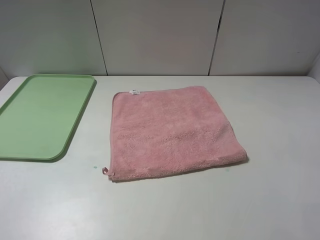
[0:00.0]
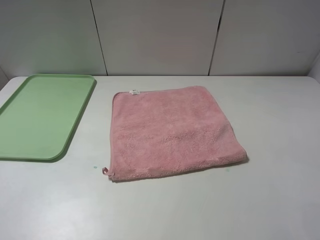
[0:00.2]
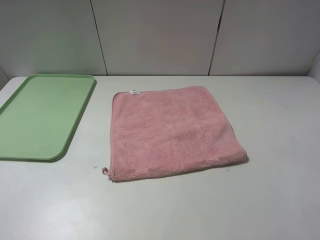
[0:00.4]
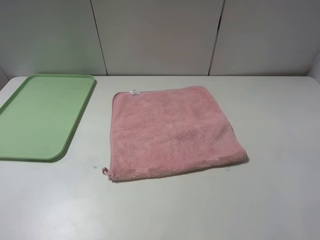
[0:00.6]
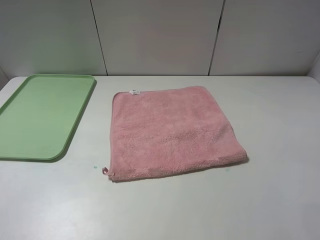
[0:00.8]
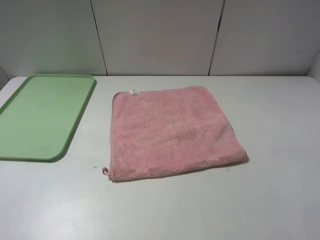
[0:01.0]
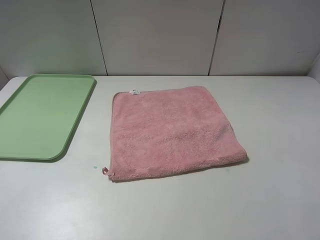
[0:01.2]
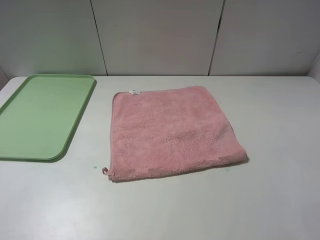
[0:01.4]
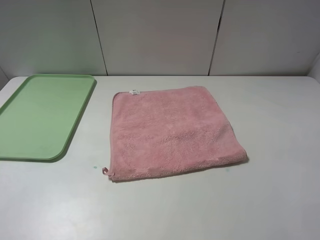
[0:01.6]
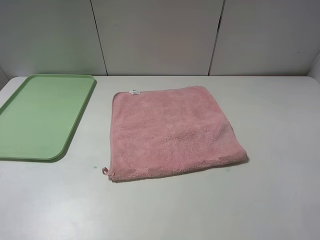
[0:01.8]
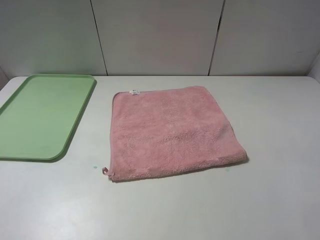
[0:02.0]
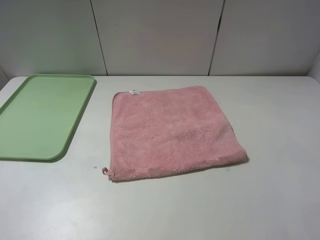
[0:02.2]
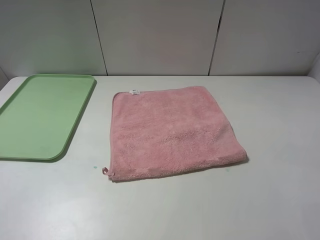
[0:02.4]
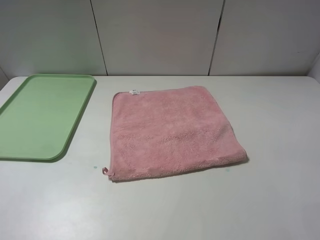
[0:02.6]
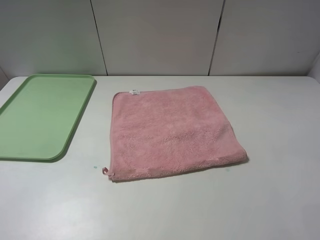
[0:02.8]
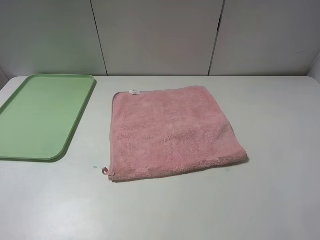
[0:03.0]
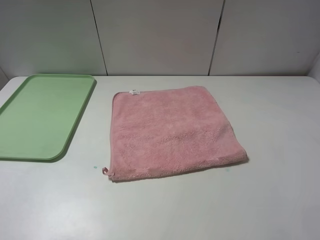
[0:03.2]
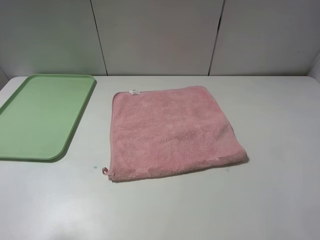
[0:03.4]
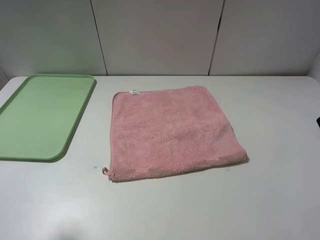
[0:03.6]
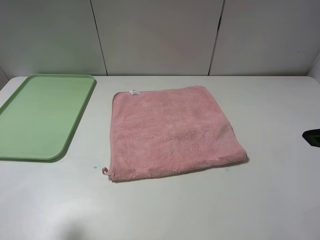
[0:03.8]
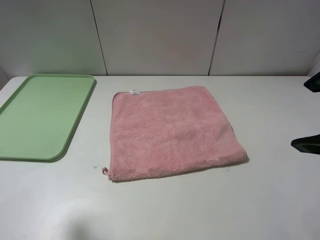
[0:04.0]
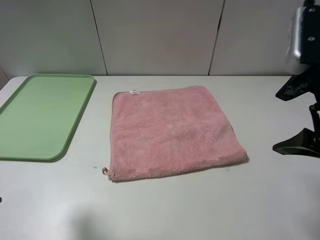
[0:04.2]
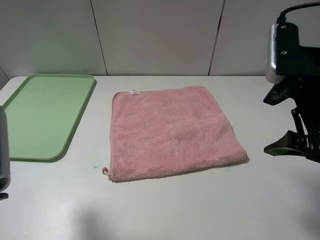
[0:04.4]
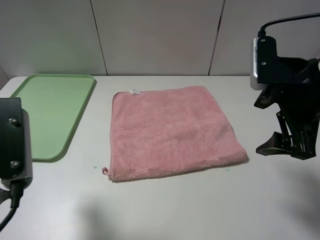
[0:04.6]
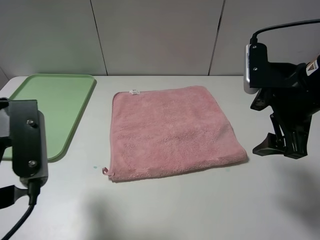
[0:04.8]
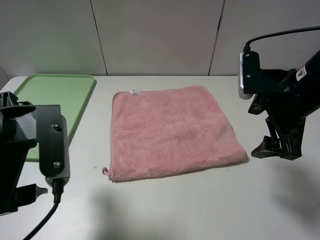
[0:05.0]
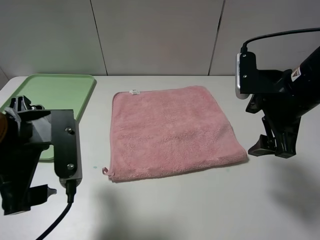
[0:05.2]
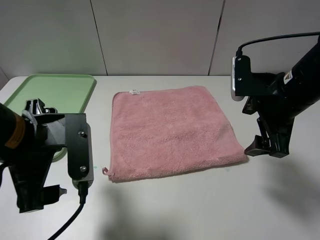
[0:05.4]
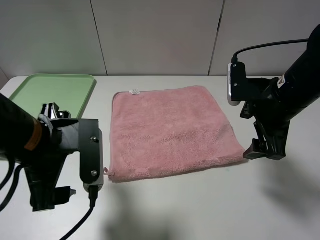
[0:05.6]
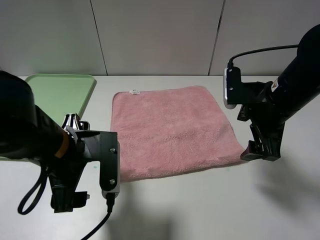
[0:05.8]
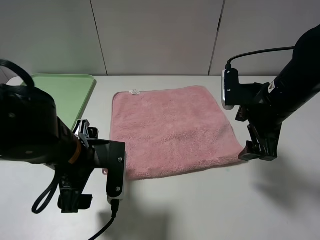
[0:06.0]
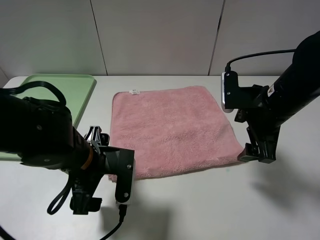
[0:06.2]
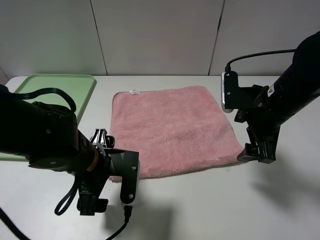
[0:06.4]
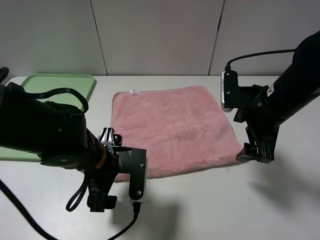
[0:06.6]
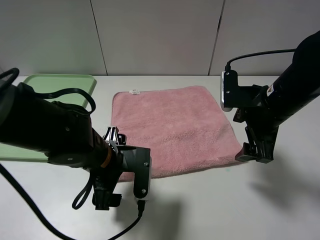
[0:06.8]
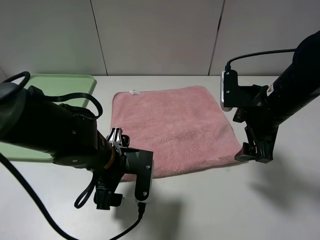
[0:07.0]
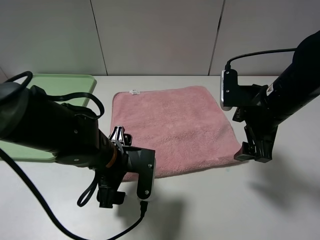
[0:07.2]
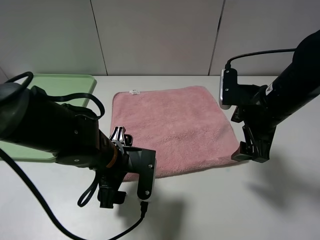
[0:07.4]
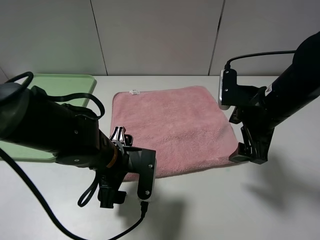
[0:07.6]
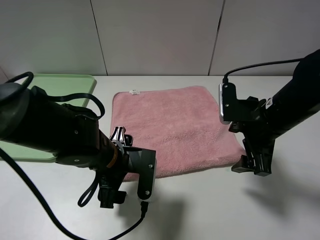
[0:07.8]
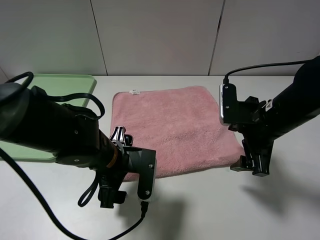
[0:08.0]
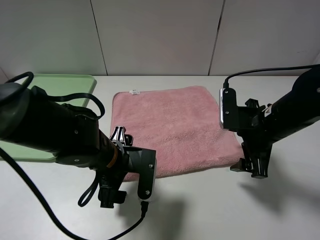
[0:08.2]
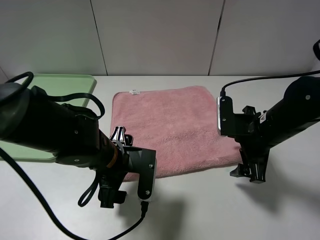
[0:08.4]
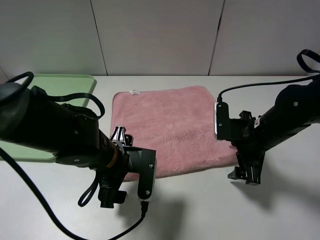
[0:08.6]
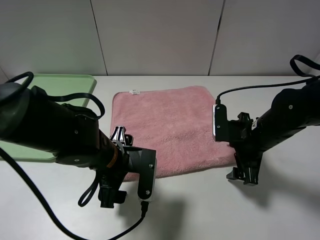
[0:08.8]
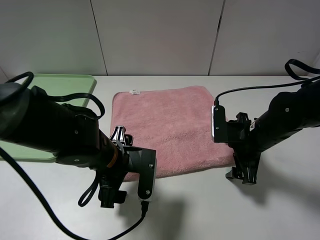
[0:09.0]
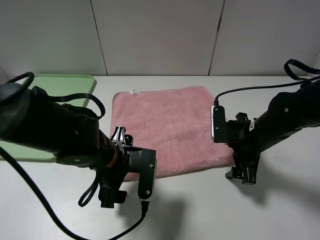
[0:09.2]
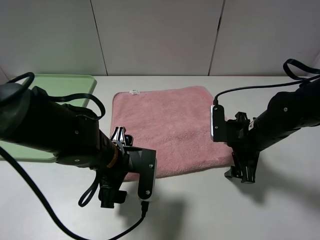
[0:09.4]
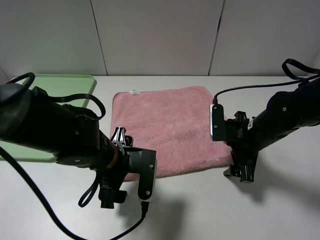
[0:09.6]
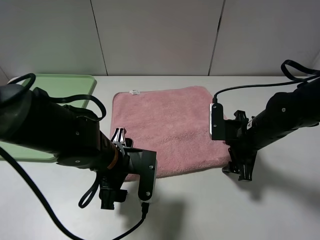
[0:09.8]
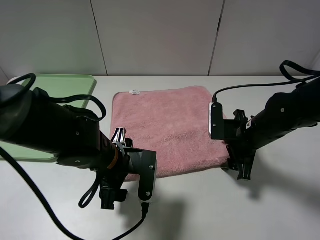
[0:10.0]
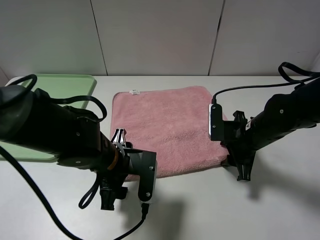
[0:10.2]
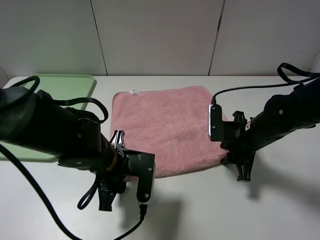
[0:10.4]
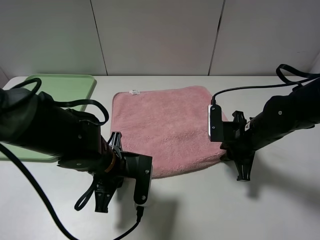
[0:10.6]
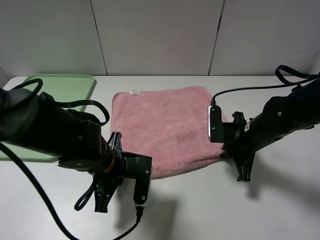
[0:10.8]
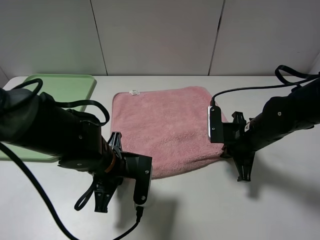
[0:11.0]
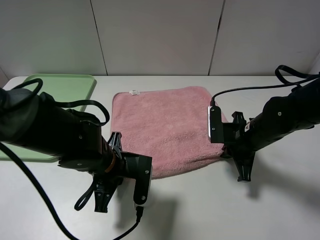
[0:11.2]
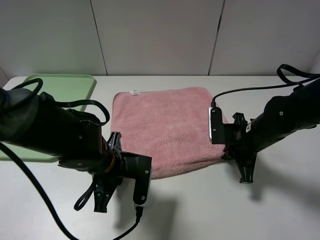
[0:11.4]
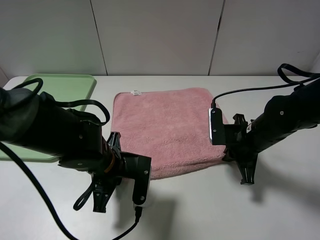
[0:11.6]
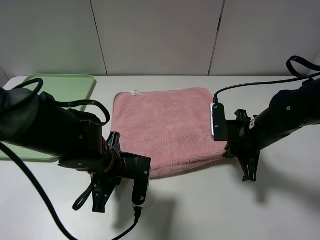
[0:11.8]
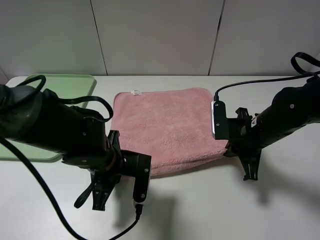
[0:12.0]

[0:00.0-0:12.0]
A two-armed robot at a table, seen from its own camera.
0:00.0 to 0:01.6: The two grippers keep their place.
0:03.0 to 0:04.4: The left gripper heads forward and to the right, covering some 10 cm. Meanwhile the right gripper heads forward, to the left and downward, covering approximately 15 cm.
0:04.4 to 0:06.0: The left gripper heads downward, to the right and forward, covering approximately 20 cm. Meanwhile the right gripper moves downward and forward, about 10 cm.
0:06.0 to 0:07.6: The left gripper moves about 5 cm.
0:07.6 to 0:09.0: The right gripper heads downward, covering about 10 cm.
0:09.0 to 0:10.4: The right gripper closes its fingers. Meanwhile the left gripper closes its fingers.
0:10.4 to 0:12.0: The right gripper closes. The left gripper closes.

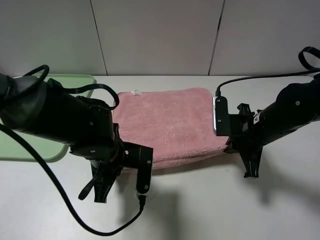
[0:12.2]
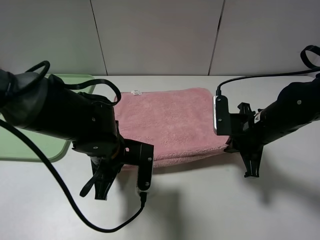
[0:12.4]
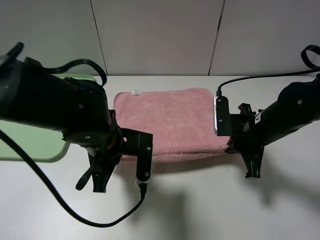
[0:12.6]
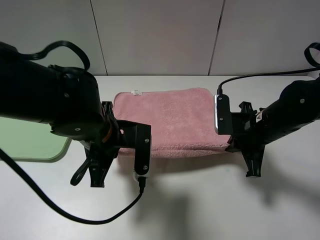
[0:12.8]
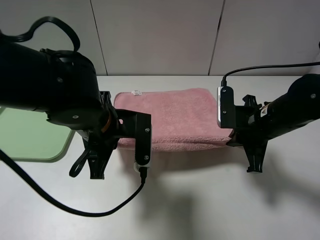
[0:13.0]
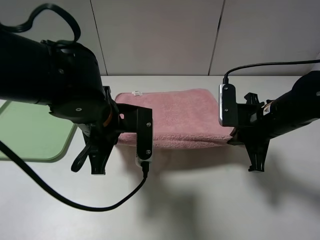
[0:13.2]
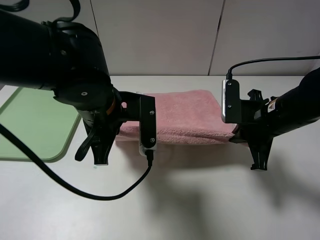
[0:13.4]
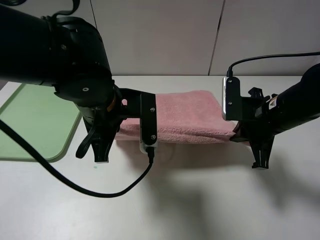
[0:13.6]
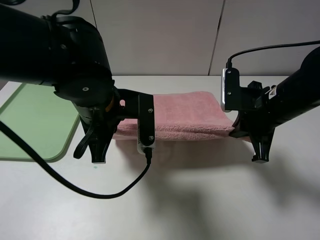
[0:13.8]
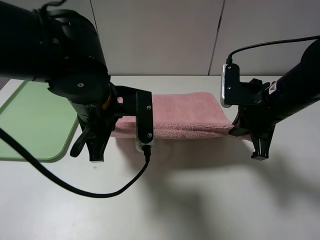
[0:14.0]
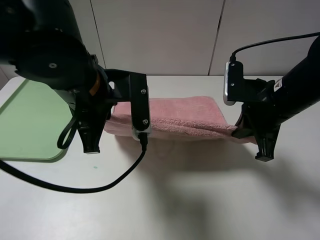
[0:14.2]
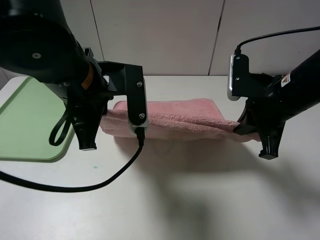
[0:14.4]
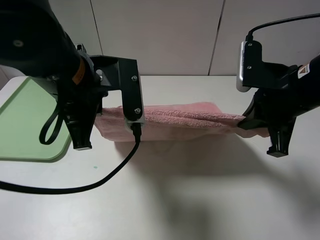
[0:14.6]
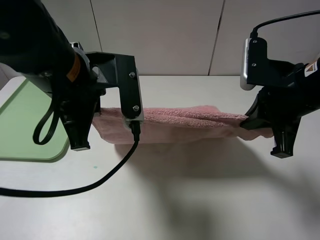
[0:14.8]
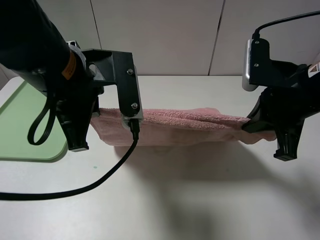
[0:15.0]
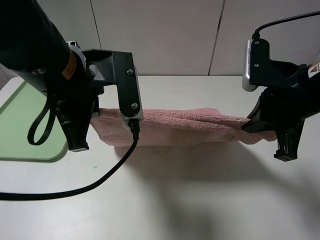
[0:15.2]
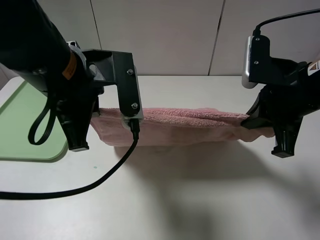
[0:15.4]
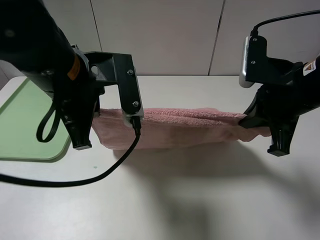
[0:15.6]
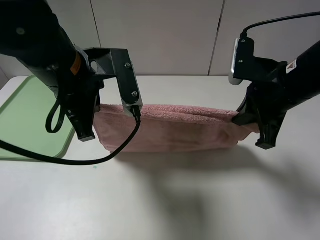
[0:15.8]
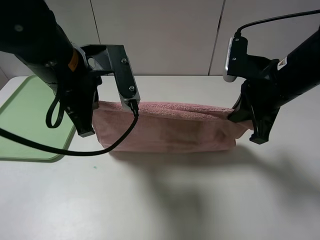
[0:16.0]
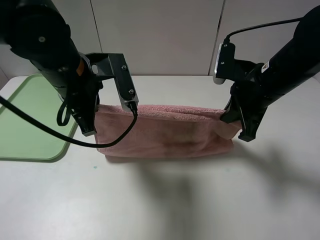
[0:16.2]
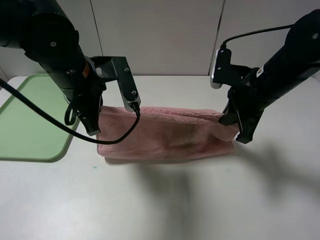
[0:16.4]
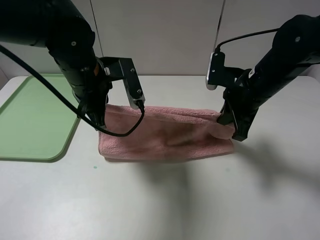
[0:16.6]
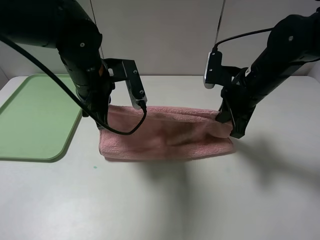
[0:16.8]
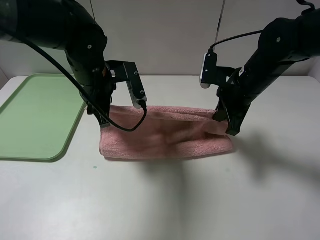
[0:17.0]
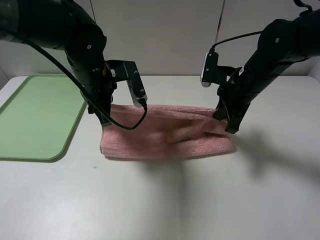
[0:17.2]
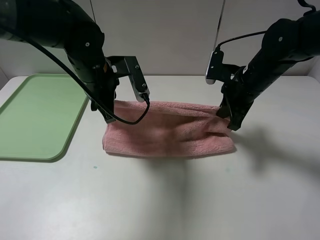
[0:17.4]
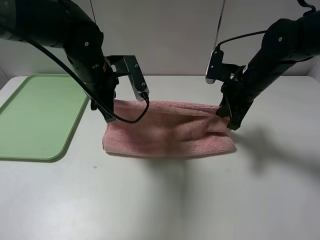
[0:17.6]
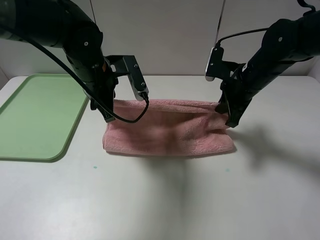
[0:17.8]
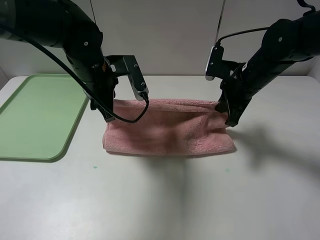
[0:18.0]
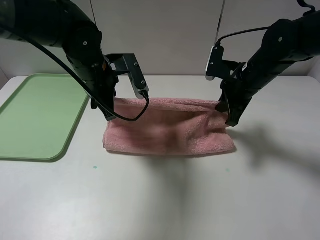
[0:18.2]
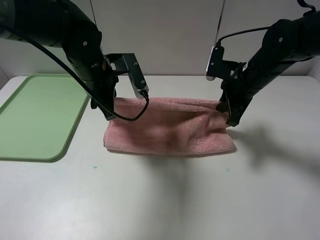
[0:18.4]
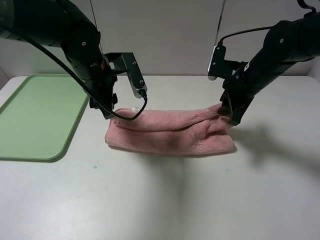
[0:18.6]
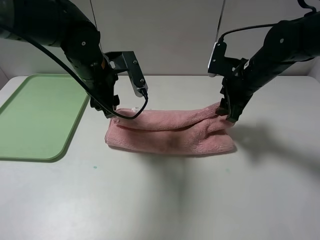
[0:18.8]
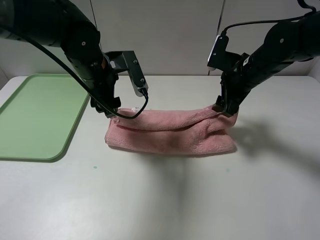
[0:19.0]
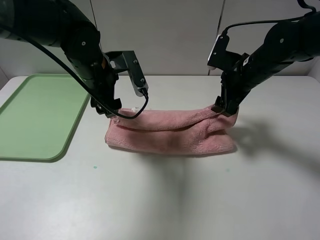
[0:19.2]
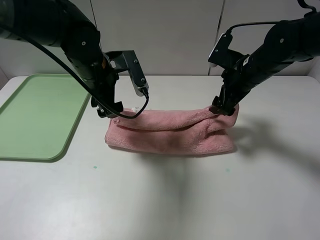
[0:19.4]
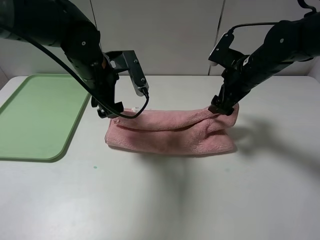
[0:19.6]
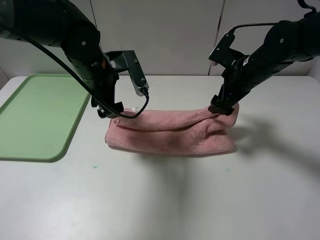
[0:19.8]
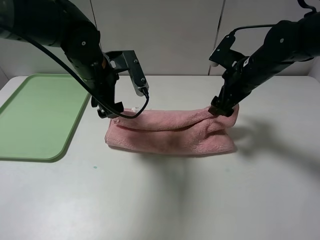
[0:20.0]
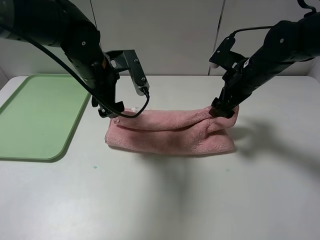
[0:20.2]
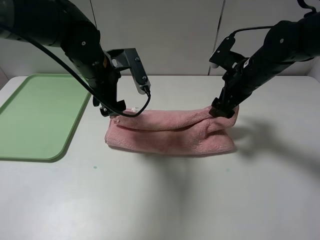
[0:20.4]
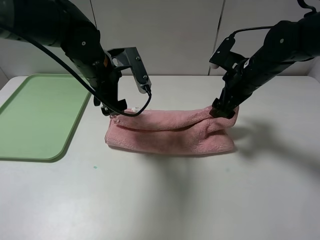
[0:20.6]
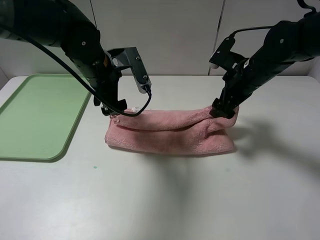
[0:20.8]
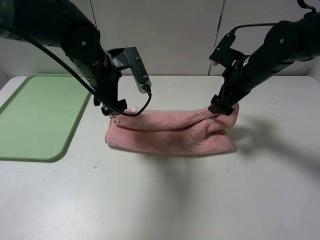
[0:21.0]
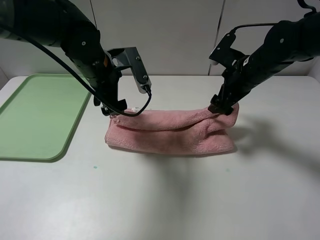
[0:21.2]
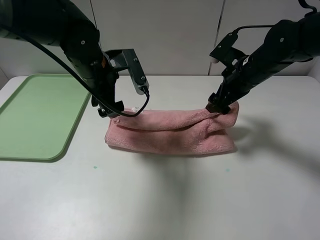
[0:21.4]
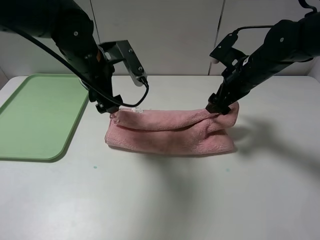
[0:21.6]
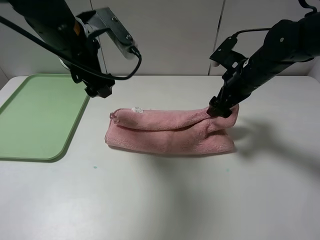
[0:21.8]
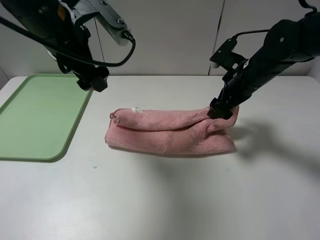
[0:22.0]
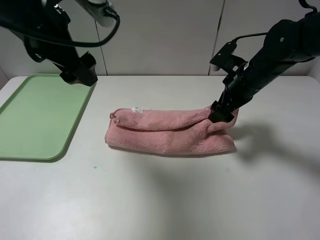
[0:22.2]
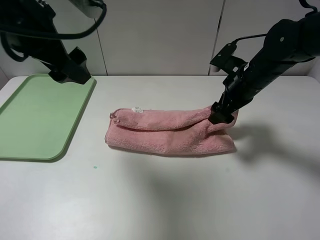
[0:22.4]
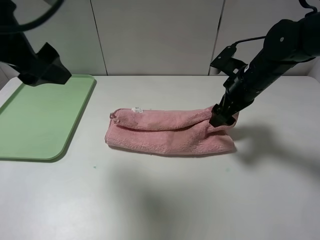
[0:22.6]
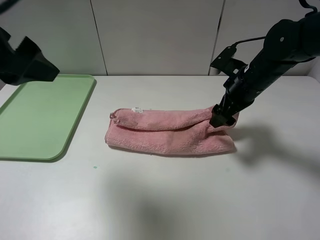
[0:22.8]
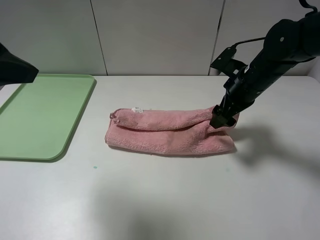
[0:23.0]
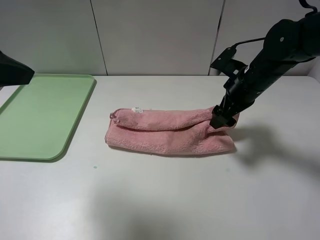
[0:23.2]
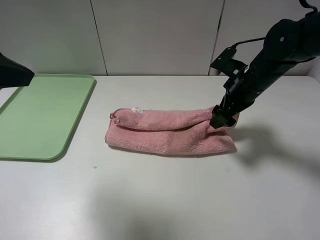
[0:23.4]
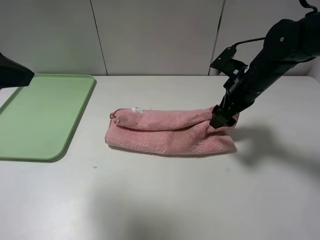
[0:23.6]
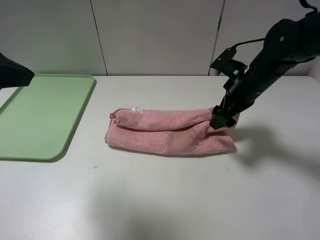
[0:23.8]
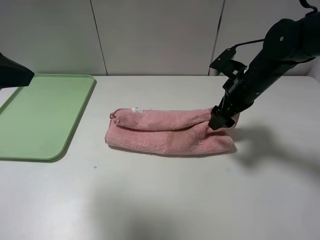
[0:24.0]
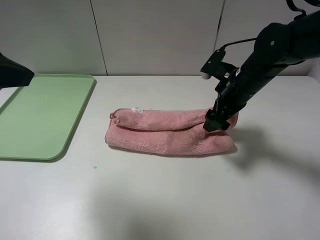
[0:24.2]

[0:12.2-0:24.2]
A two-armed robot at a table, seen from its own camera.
0:12.2 to 0:13.8: The left gripper moves upward, roughly 10 cm; the right gripper goes roughly 5 cm upward.
0:13.8 to 0:15.2: The grippers both shift upward by about 5 cm.
0:15.2 to 0:16.6: The two grippers go approximately 10 cm forward and downward.
0:18.2 to 0:19.8: The right gripper opens its fingers. The left gripper opens up.
0:19.8 to 0:21.2: Both grippers stay put.
0:21.2 to 0:22.6: The left gripper is displaced upward, backward and to the left by approximately 20 cm.
0:22.6 to 0:24.2: The left gripper goes roughly 5 cm backward.
